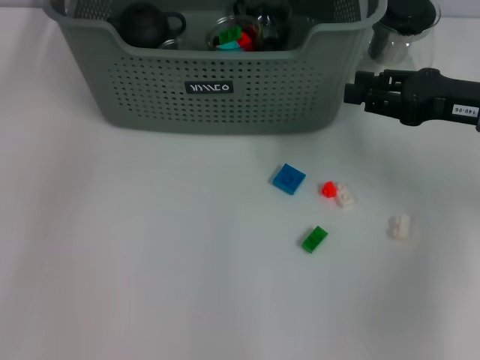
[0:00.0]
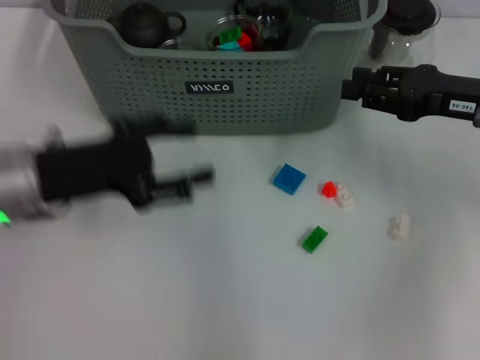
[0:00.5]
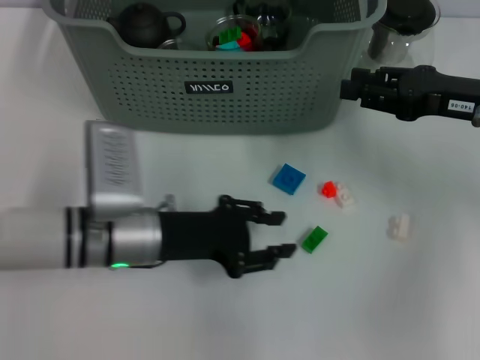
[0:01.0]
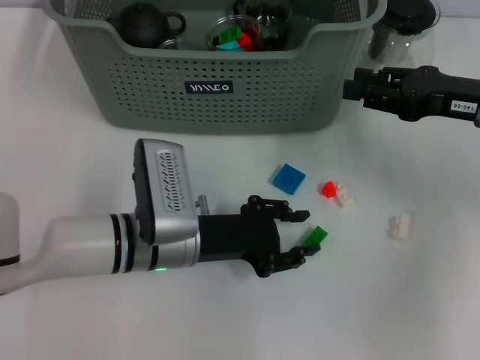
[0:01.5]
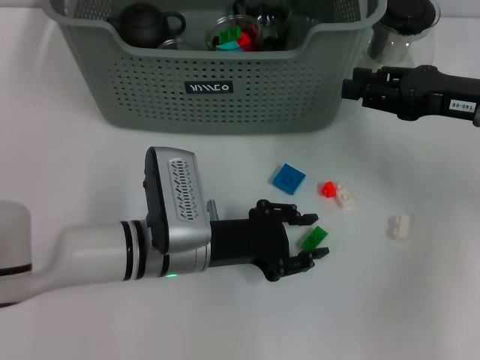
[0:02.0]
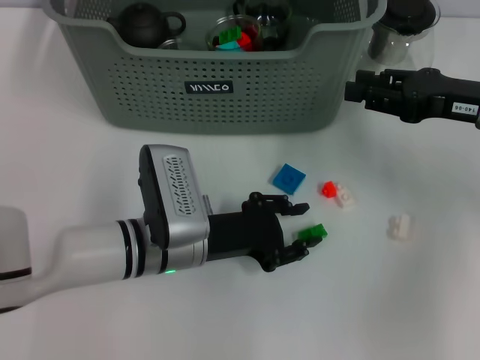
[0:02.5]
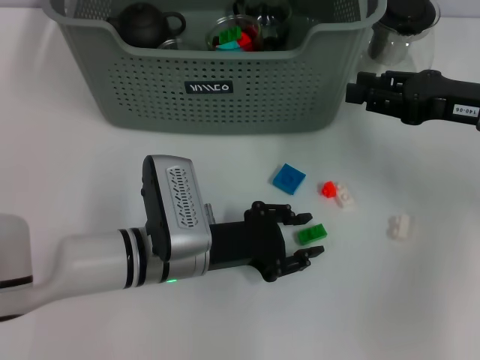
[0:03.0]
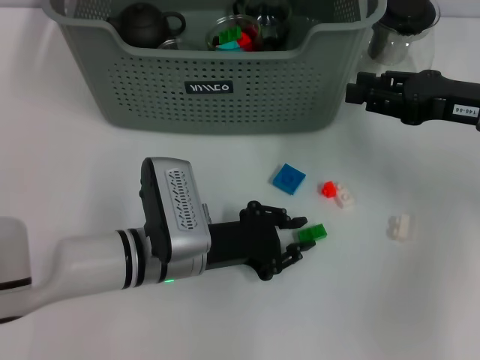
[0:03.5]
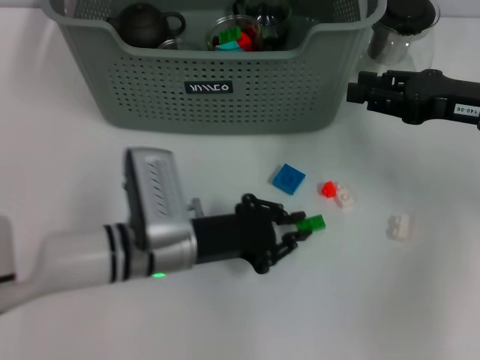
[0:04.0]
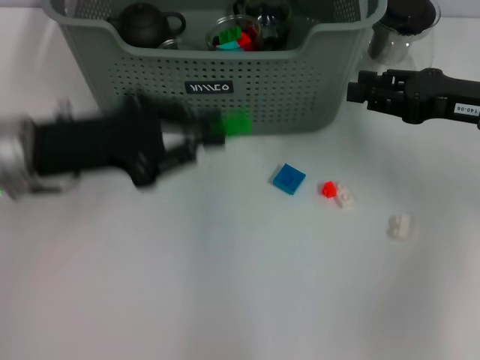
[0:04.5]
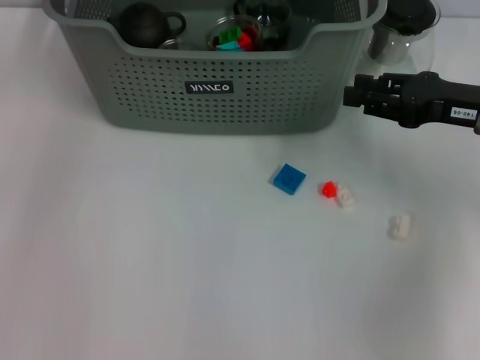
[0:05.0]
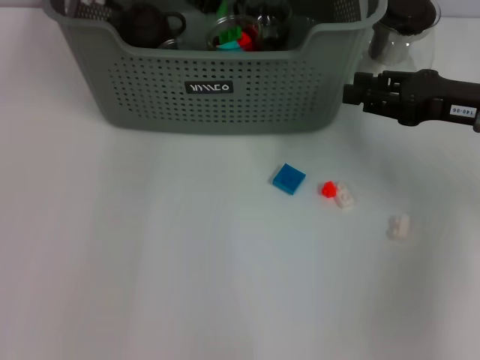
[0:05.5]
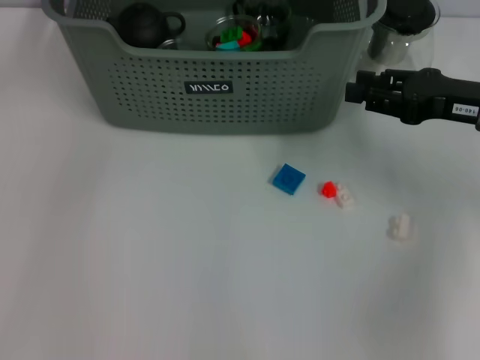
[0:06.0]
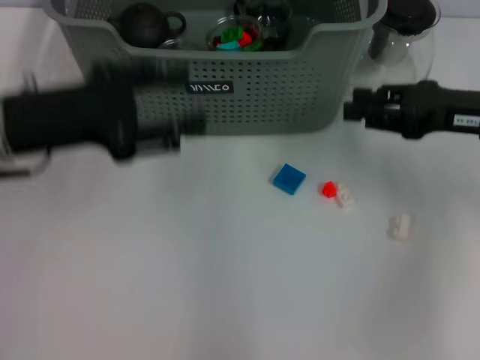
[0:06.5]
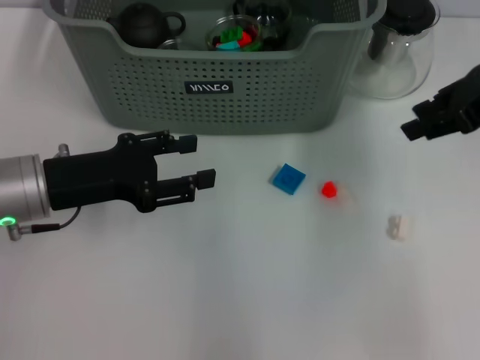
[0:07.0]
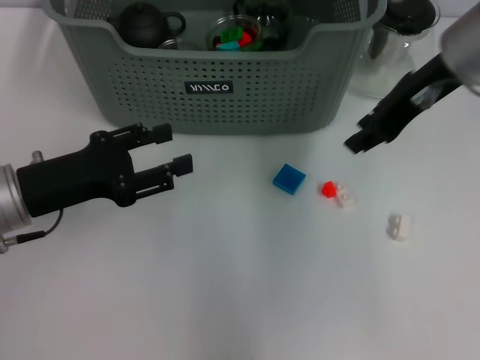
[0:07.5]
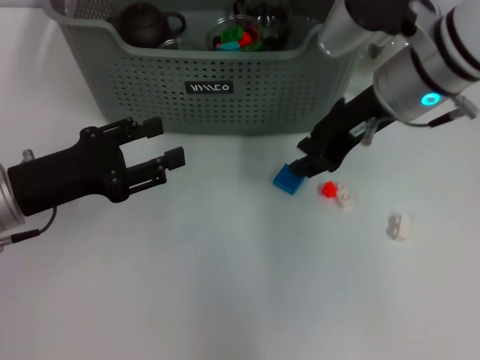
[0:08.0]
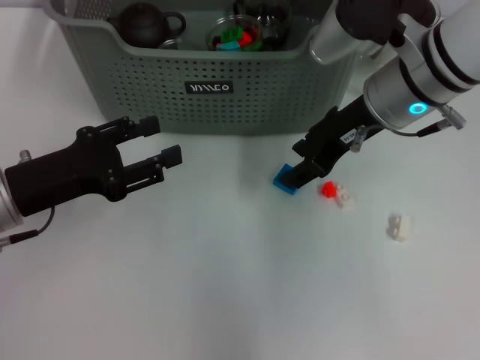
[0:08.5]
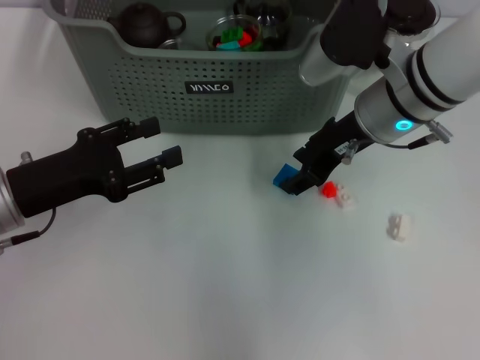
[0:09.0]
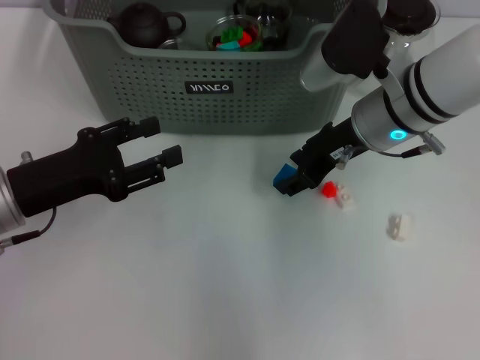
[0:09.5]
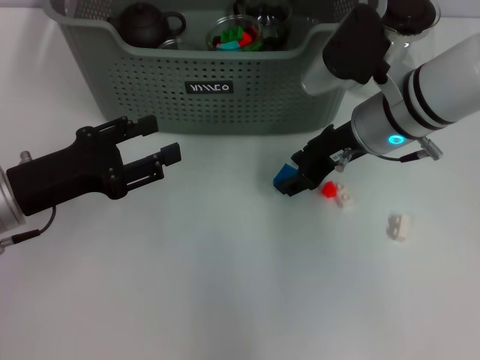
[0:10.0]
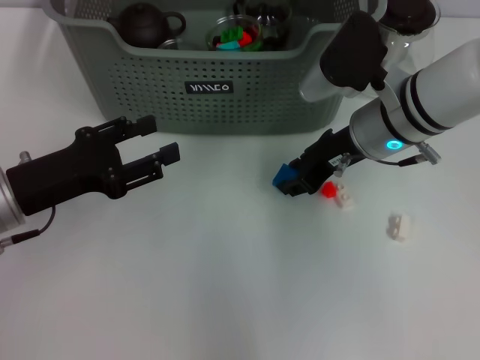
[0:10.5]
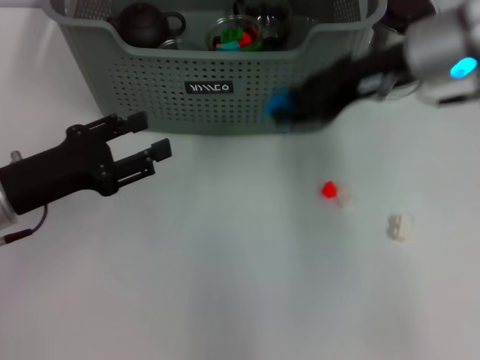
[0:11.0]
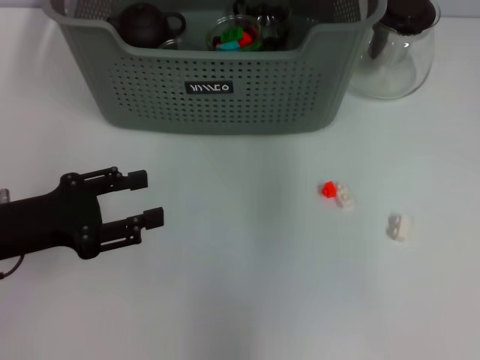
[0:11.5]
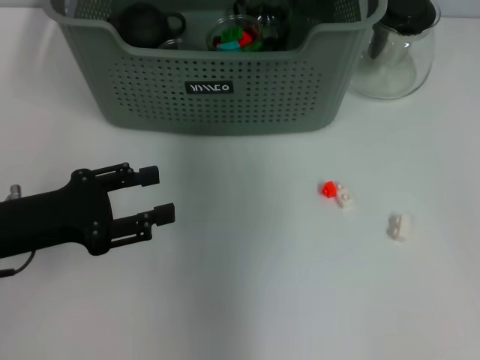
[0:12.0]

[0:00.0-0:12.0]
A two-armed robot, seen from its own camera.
Task of the whole recording: pick up the teacup on the table and place it into the storage bin, pick up the block on the table and place it into the storage bin.
Step, 0:00.0 to 0:03.5: Grasp the green block with left gripper.
Step, 0:04.0 to 0:05.5: Place the green block in the storage box with left gripper.
Step, 0:06.0 to 0:10.5: Grasp the dark blue block with right gripper.
0:00.0 to 0:02.0: The left gripper goes about 25 cm downward and backward.
0:02.0 to 0:04.0: Both grippers stay put.
0:04.0 to 0:06.0: The left gripper swings up and down, some 25 cm each way, with 2 reversals, and opens its fingers.
0:06.0 to 0:08.0: The left gripper shifts about 25 cm downward, backward and to the left; the right gripper shifts approximately 15 cm to the left.
0:08.0 to 0:10.0: The right gripper moves downward, roughly 5 cm.
0:10.0 to 0:12.0: The right gripper shifts some 20 cm upward, forward and to the left.

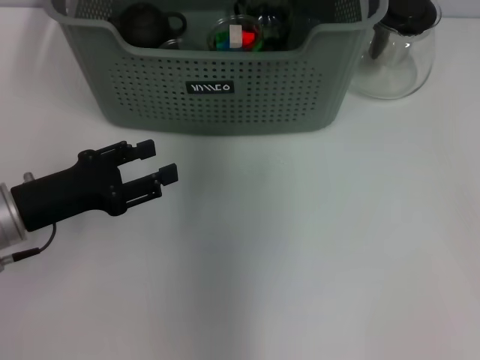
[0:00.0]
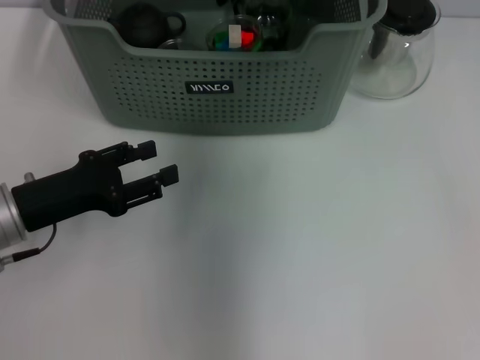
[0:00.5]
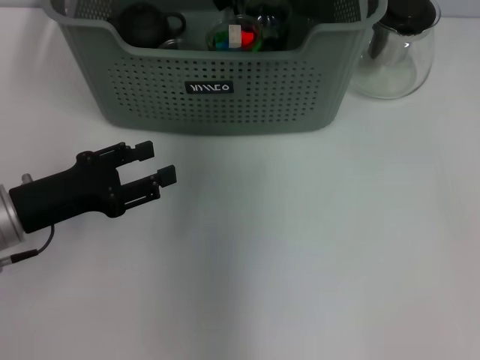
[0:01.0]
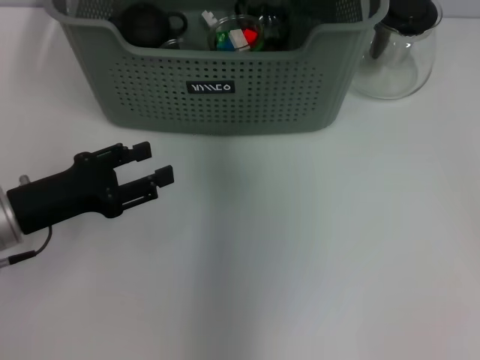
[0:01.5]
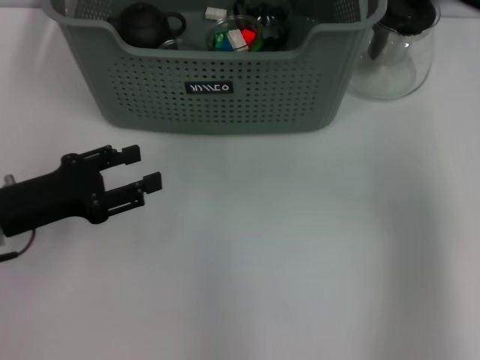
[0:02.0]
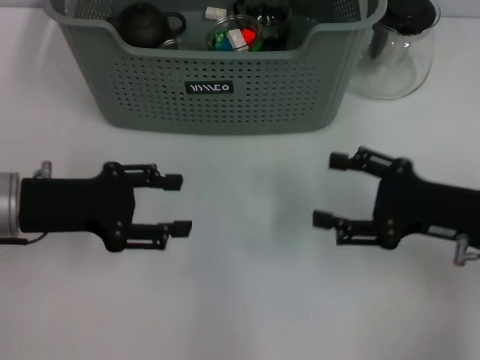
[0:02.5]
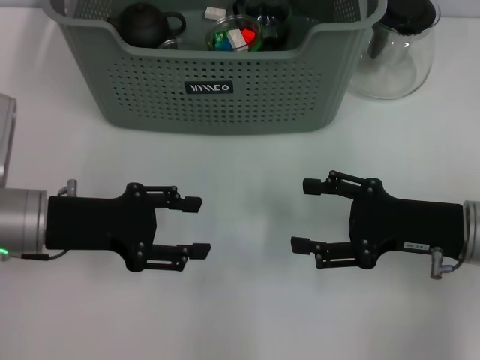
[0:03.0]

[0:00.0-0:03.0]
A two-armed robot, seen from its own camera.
Task of the whole recording: pick up the teacup on the table and place it into the storage bin, pick up the block on the table and place it into the storage bin.
0:00.0 to 0:01.5: The grippers make only small movements.
0:01.5 to 0:03.0: The right gripper heads backward, downward and to the right, covering some 30 cm.
